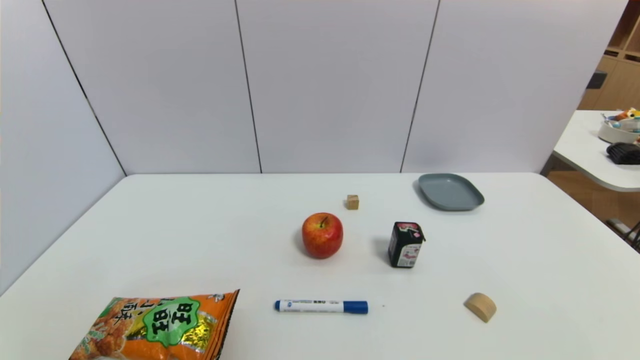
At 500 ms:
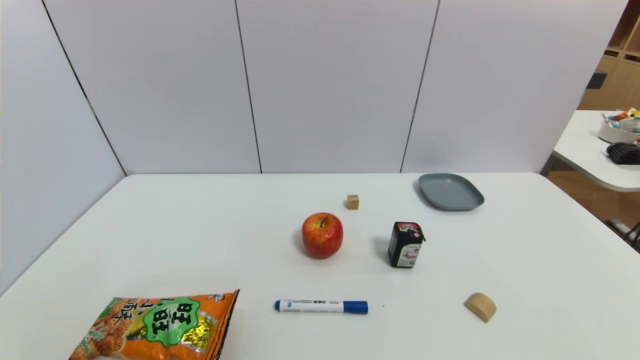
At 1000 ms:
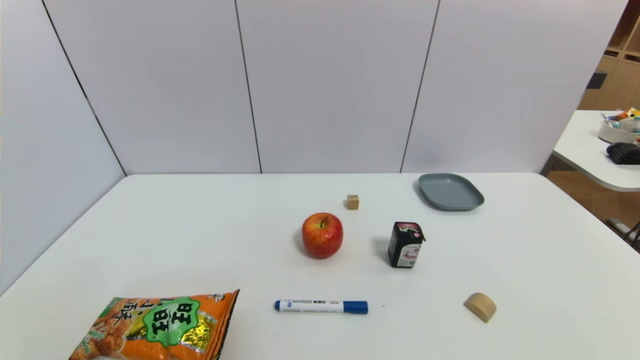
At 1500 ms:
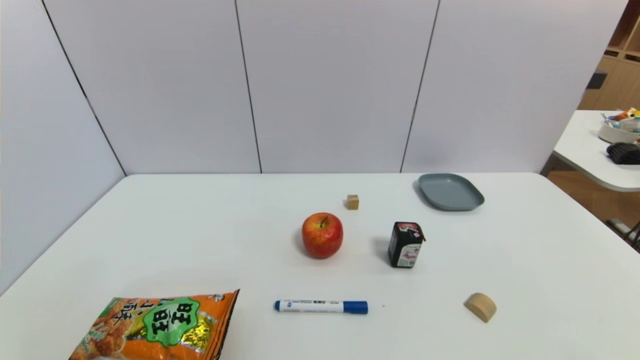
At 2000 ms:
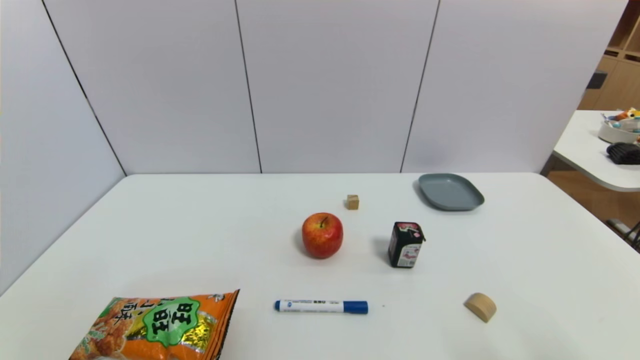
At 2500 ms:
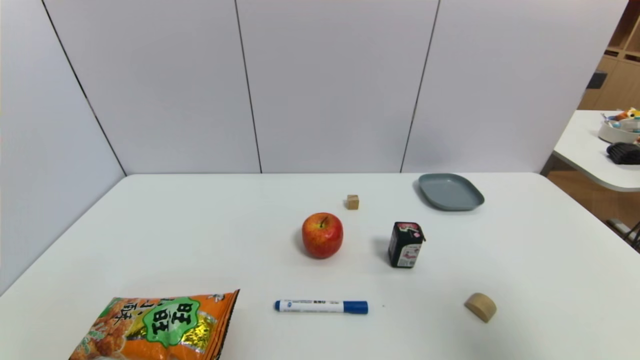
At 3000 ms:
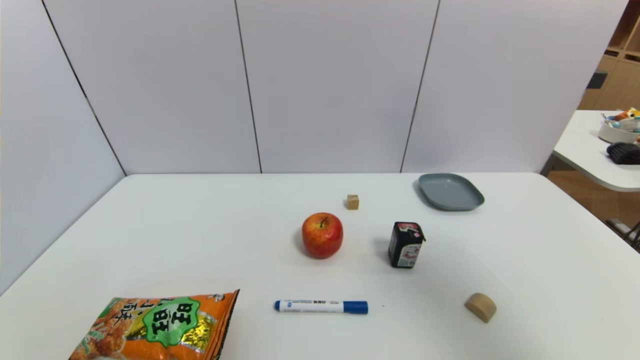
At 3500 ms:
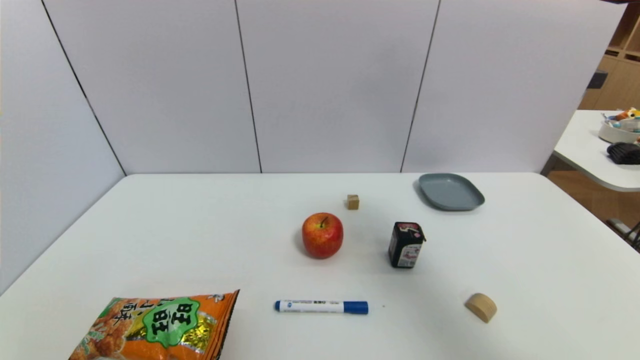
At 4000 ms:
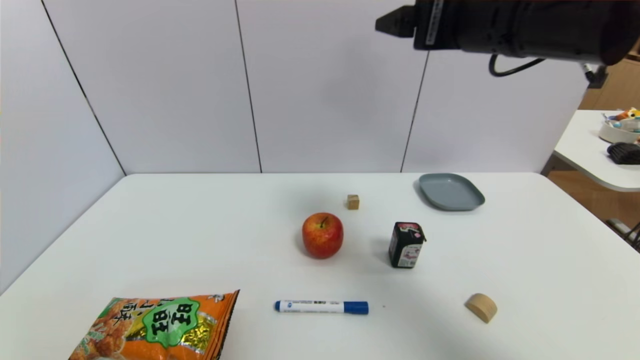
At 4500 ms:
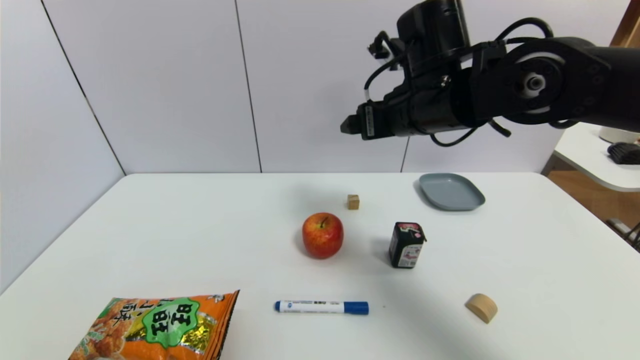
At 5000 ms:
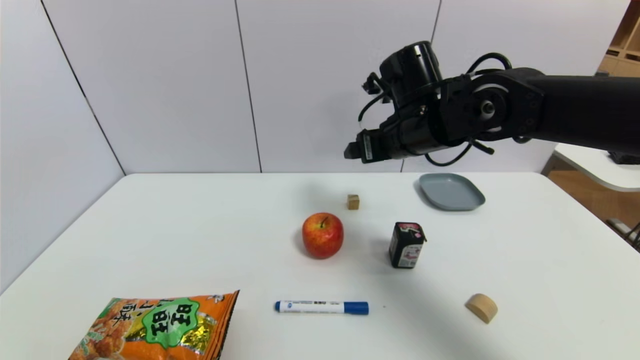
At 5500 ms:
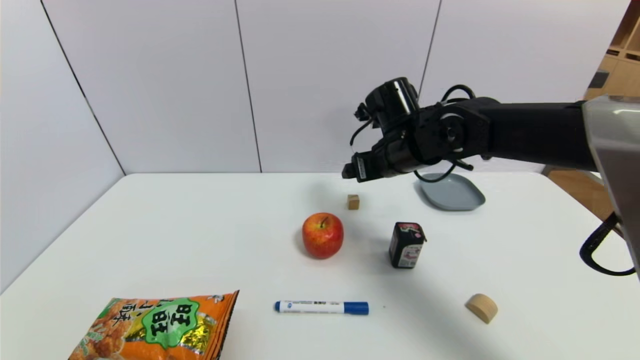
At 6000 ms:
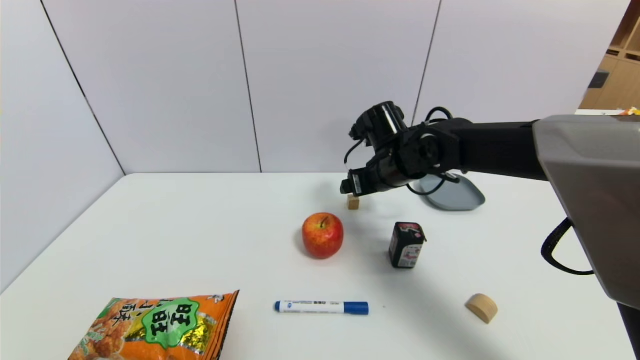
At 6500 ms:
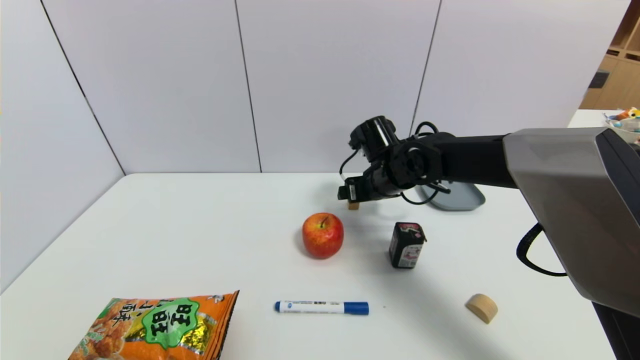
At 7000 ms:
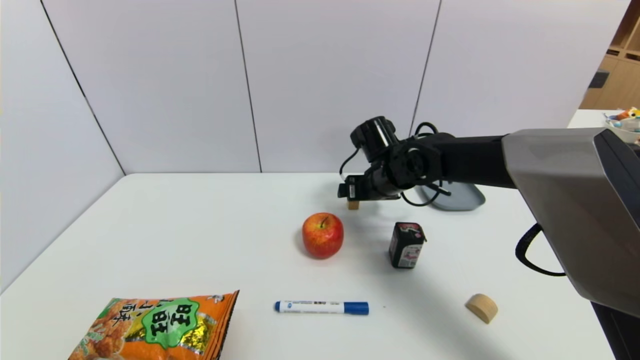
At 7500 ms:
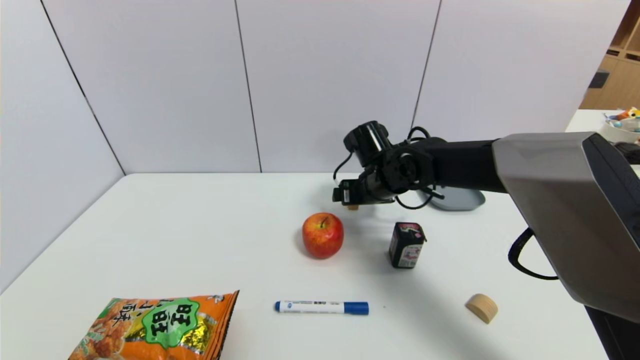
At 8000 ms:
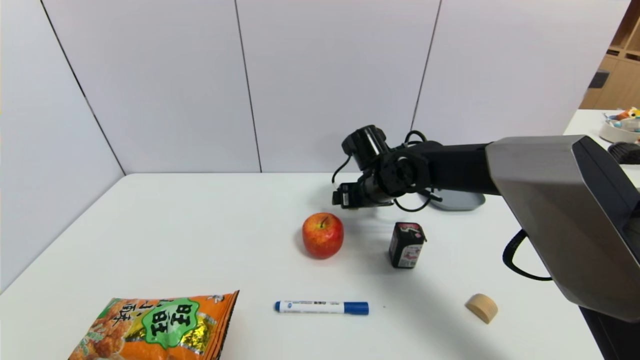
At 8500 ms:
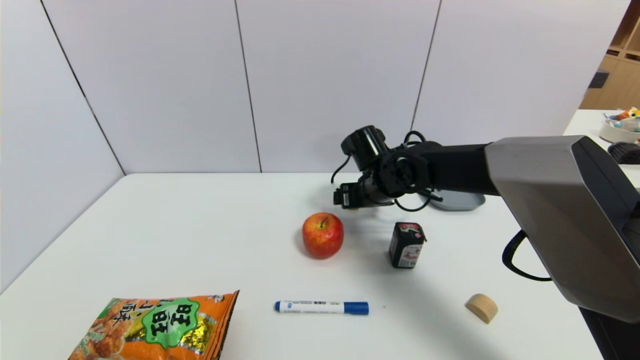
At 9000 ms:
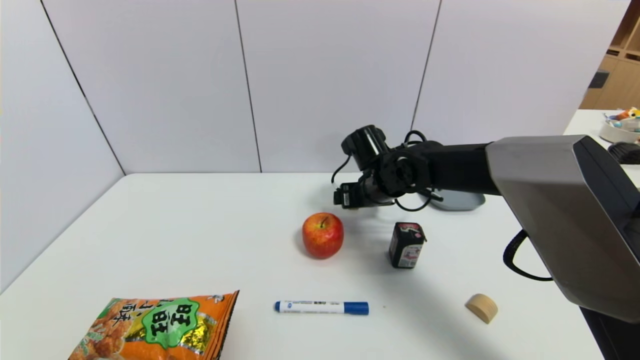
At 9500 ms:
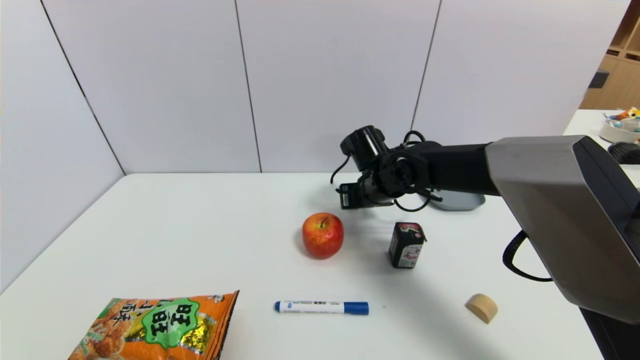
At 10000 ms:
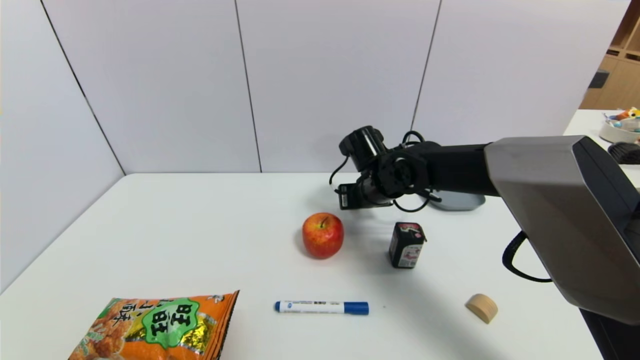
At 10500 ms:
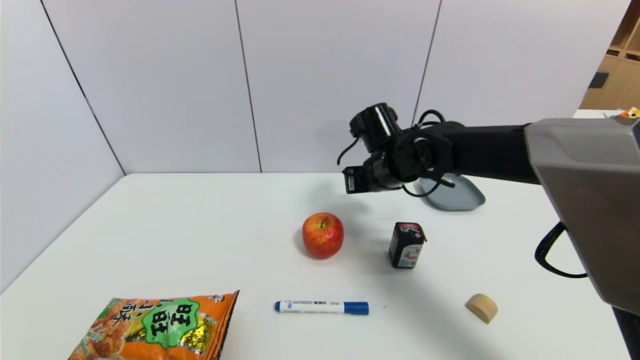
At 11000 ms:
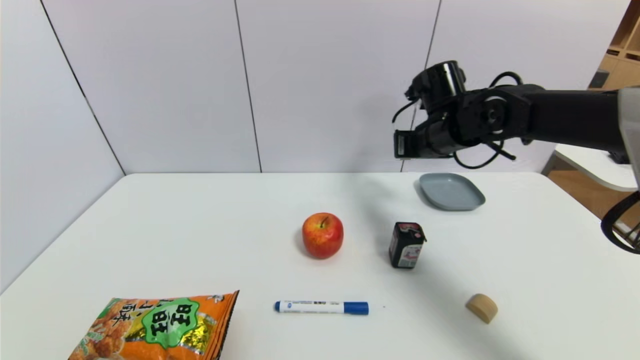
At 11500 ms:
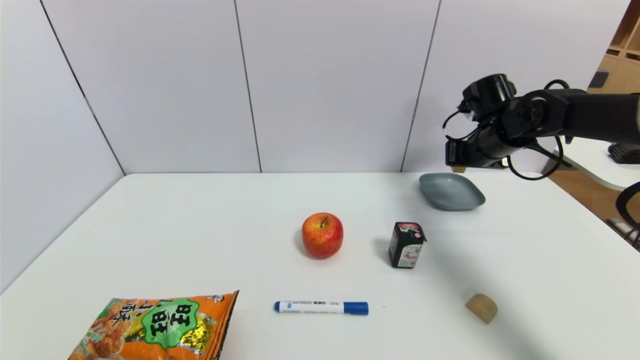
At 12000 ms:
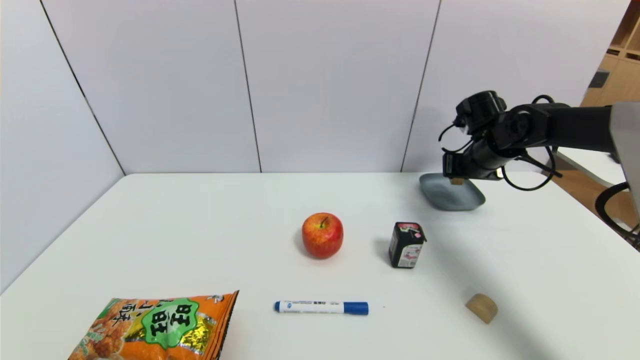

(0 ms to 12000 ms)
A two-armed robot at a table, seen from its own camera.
Task of the whole recording: use a gripper to pick the target object and place on the dish.
Step, 0 ms - 9500 ms: Grasp the square wooden block with the right gripper.
2000 ms - 4000 ms: The right gripper goes some 35 cm forward, to the left and upward.
4000 ms - 6000 ms: The right gripper goes some 25 cm downward and forward.
6000 ms - 8000 ms: The grippers move only a little.
8000 ms - 10000 ms: The right gripper closes its fingers.
10000 ms - 12000 ms: The right gripper moves to the right, roughly 20 cm.

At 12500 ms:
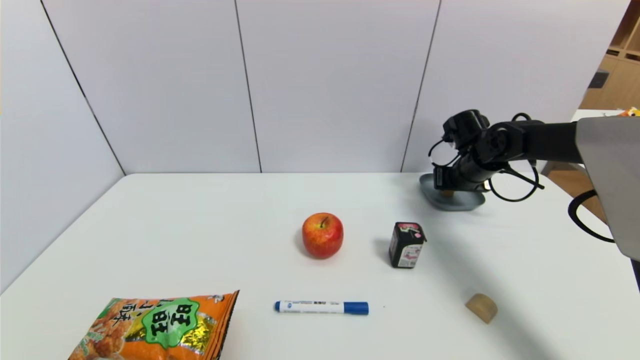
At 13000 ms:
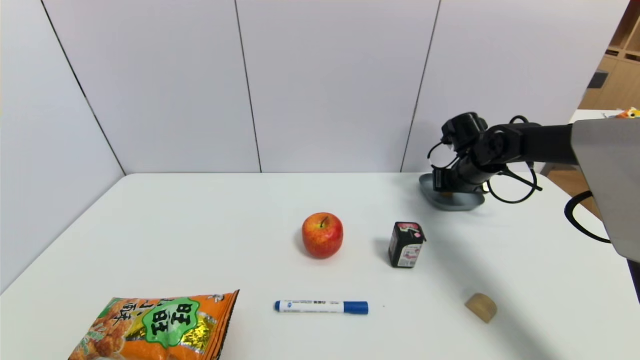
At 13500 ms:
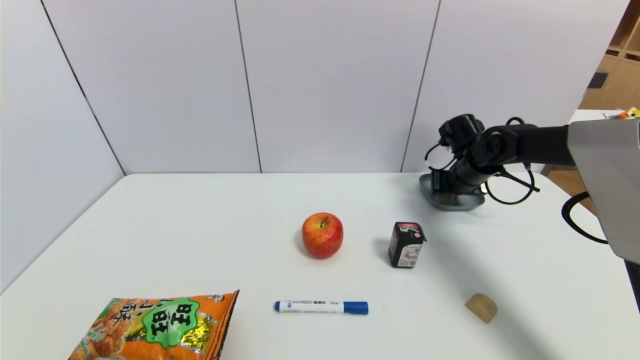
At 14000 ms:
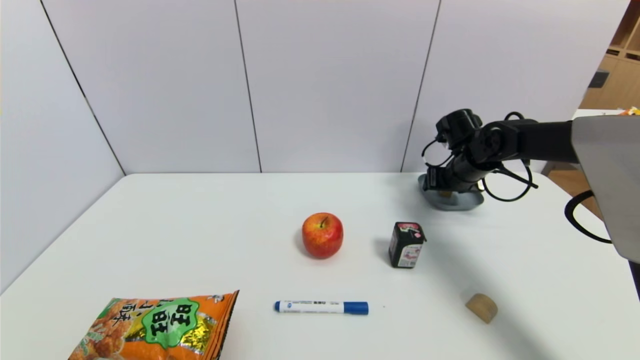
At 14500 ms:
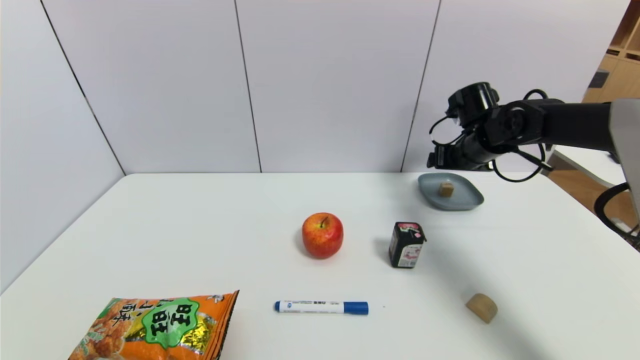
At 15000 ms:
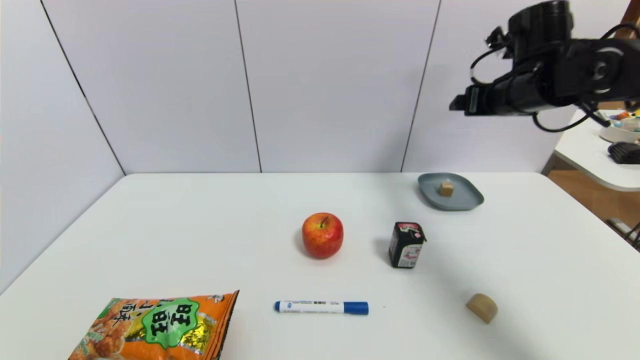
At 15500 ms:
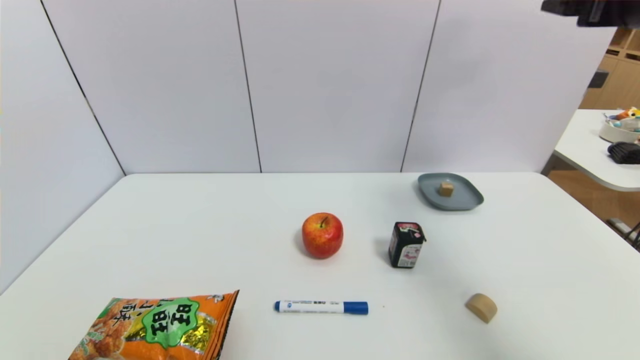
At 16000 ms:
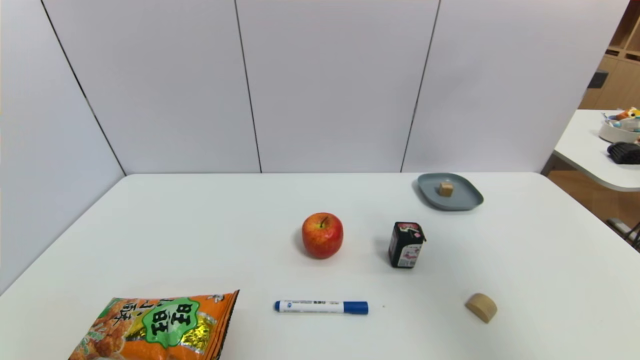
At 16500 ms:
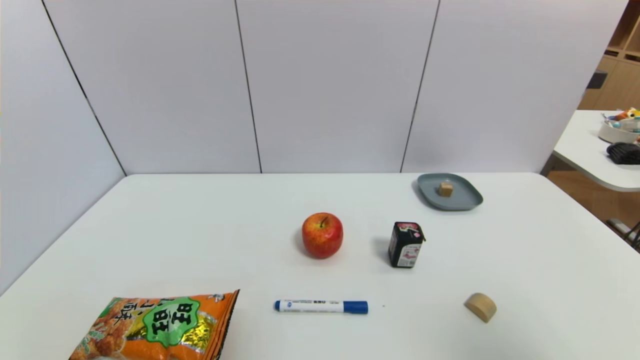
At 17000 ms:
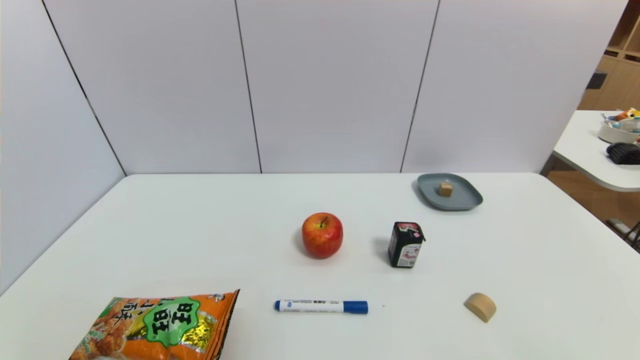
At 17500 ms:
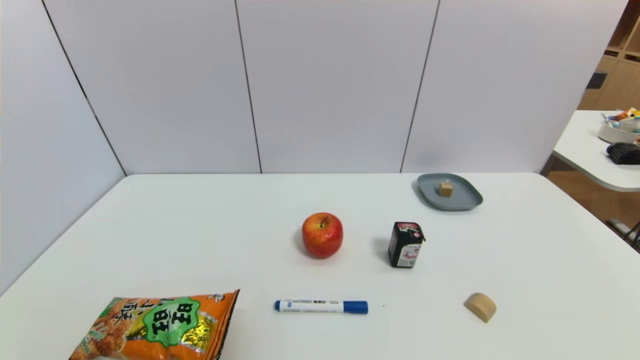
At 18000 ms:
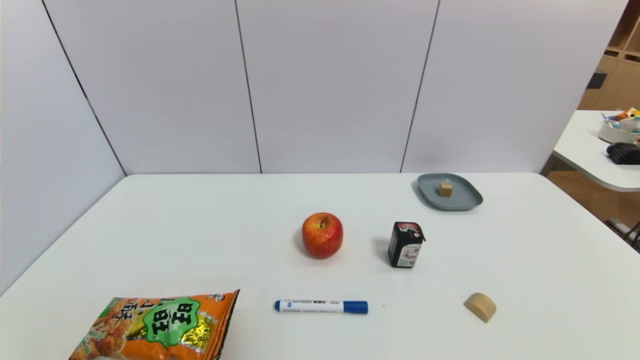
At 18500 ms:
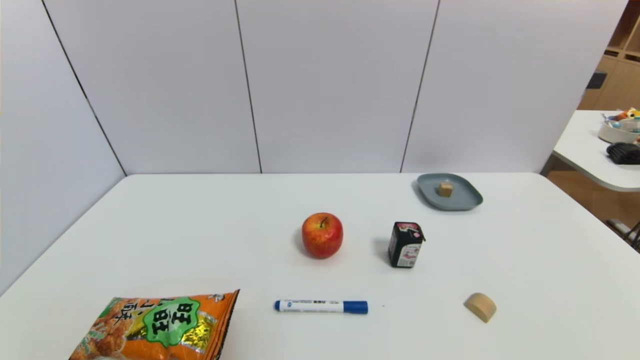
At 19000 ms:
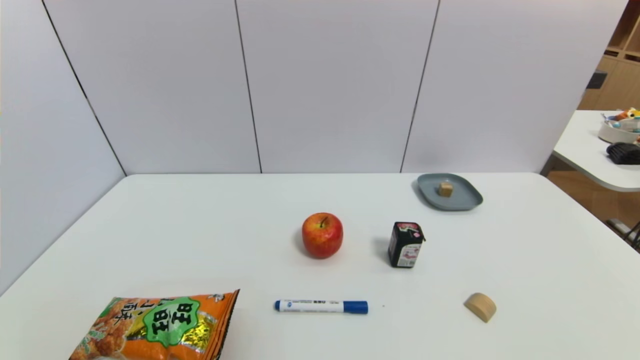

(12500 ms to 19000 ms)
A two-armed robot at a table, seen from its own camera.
Task of the whole recording: use a gripper to pick the target object and place on the dish.
12500 ms - 14500 ms: The right gripper is displaced upward by roughly 5 cm, and opens its fingers.
14500 ms - 17000 ms: The right gripper goes some 50 cm backward.
